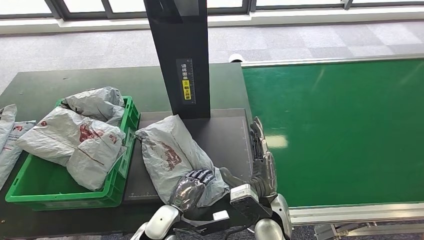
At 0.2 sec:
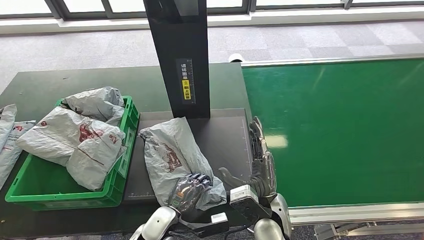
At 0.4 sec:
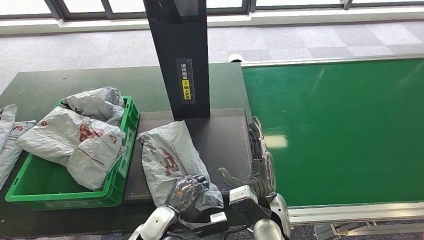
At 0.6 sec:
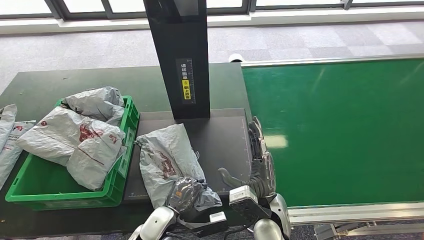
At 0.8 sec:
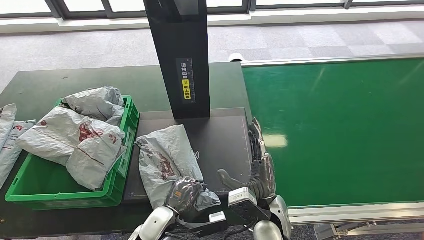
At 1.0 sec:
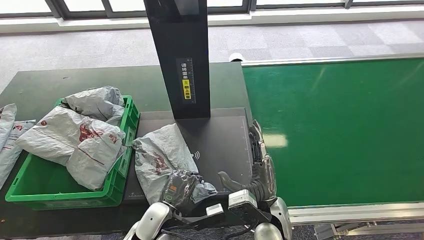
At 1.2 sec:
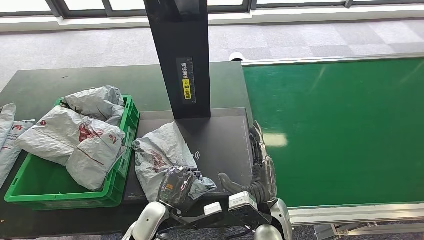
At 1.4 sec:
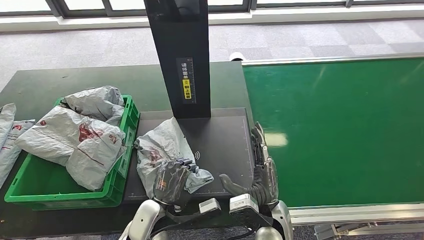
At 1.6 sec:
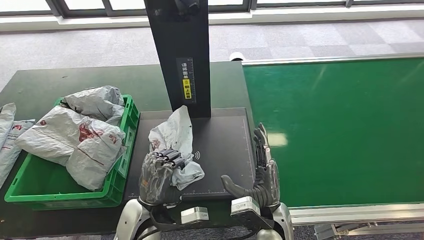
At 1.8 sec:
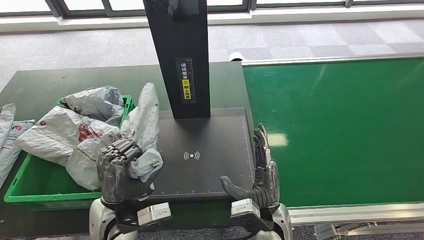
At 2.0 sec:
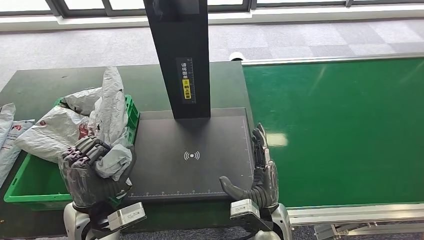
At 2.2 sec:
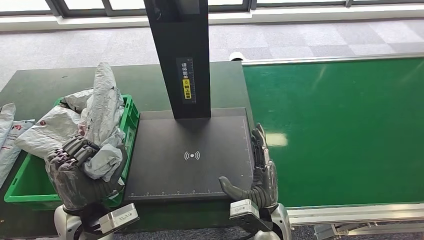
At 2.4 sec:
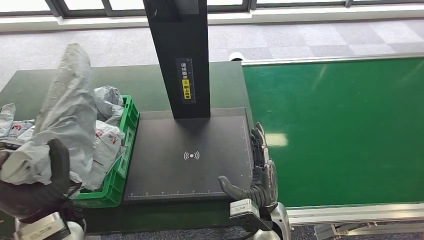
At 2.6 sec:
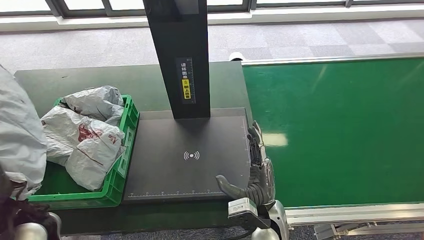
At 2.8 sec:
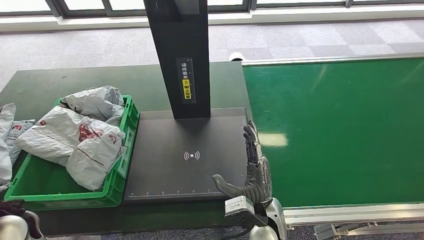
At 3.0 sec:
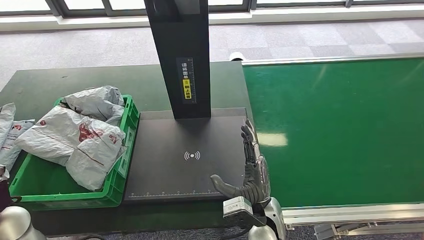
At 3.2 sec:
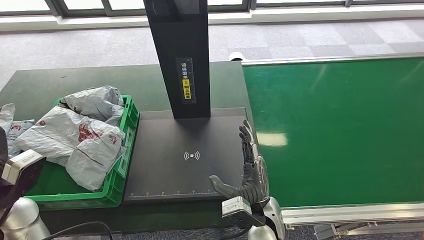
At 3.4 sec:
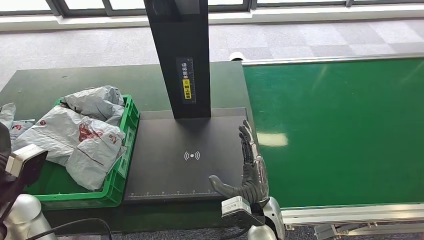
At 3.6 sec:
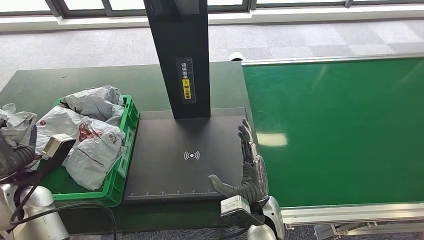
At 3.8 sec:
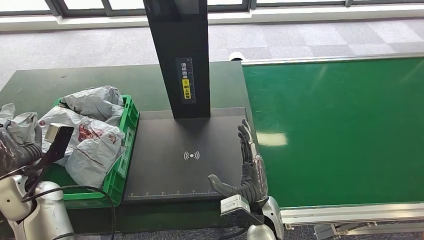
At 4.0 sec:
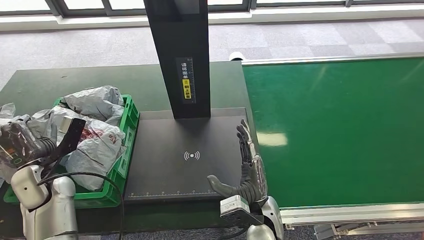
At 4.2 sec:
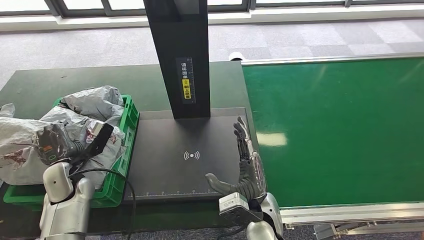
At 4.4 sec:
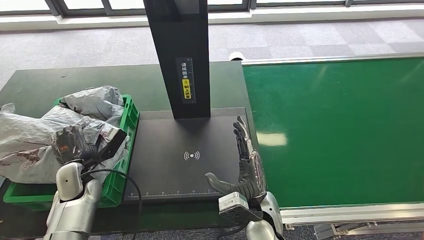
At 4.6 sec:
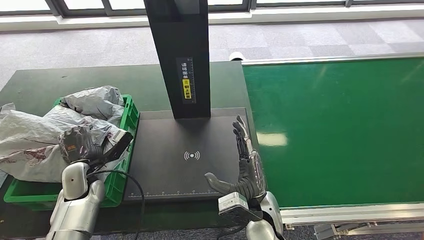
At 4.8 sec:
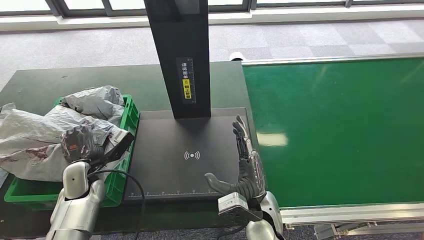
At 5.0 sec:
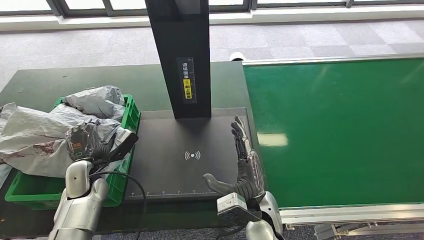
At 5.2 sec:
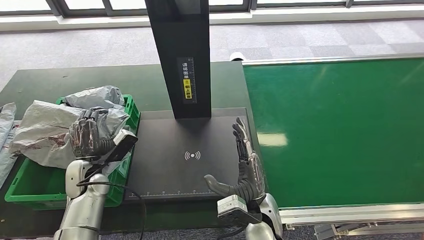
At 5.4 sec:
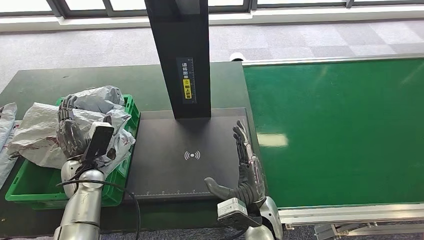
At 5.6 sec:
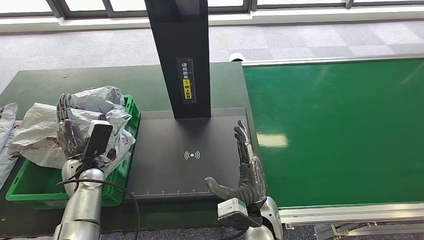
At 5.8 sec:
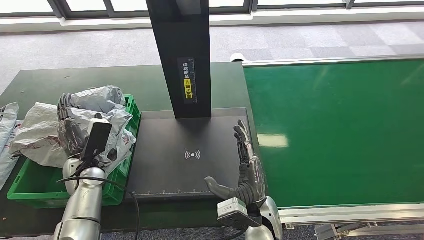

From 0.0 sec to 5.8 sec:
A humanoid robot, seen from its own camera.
Step, from 0.0 sec to 2.8 sec: Pick up the parcel from the inbound machine.
Step, from 3.2 sec to 5.8 sec: Place the parcel into the delivery box.
From 0.0 sec to 1.4 sec: The left hand goes some 5 cm upward.
From 1.4 sec to 2.8 sec: The left hand goes some 25 cm to the left and upward.
From 2.8 sec to 4.4 sec: The left hand travels downward and forward by some 15 cm.

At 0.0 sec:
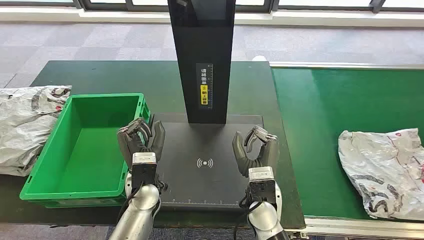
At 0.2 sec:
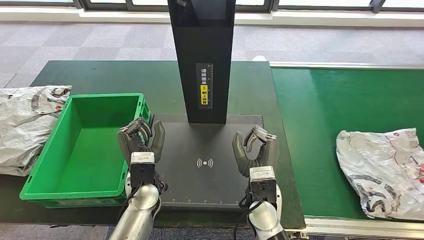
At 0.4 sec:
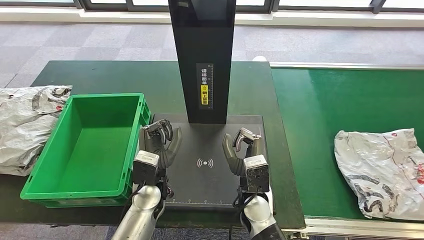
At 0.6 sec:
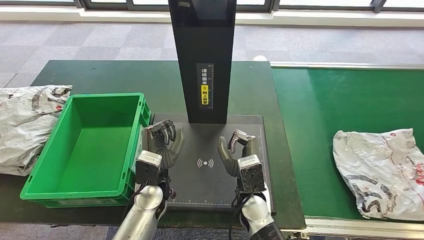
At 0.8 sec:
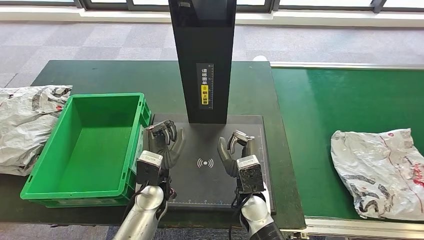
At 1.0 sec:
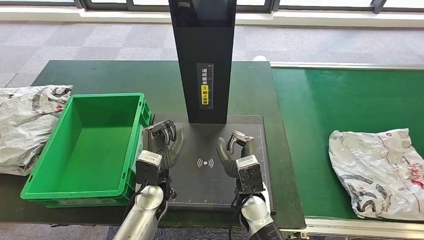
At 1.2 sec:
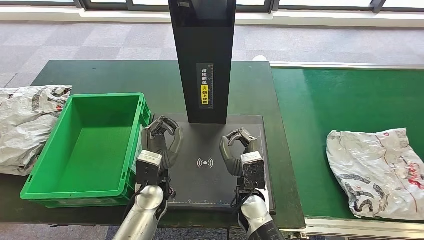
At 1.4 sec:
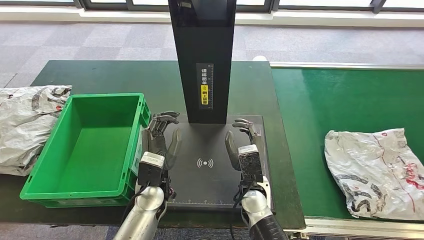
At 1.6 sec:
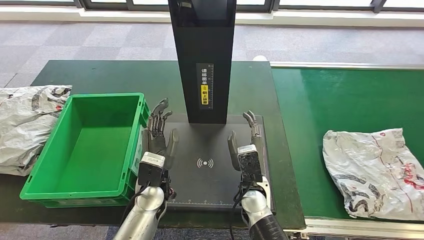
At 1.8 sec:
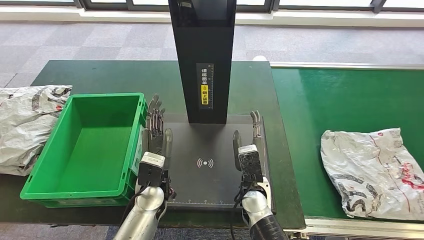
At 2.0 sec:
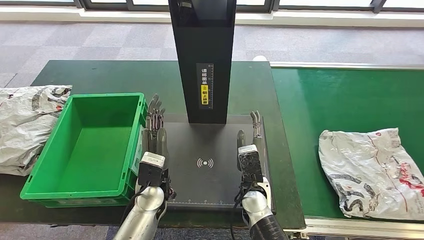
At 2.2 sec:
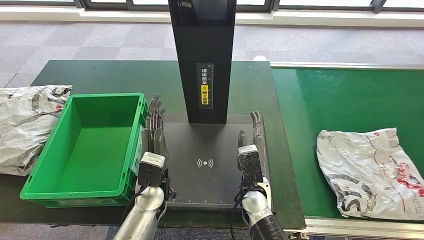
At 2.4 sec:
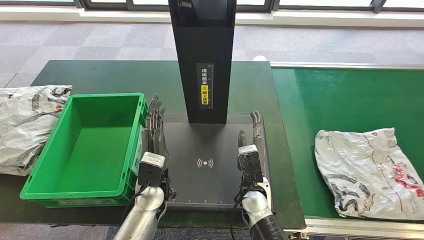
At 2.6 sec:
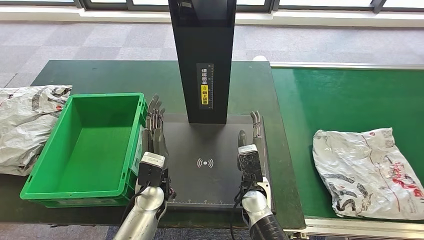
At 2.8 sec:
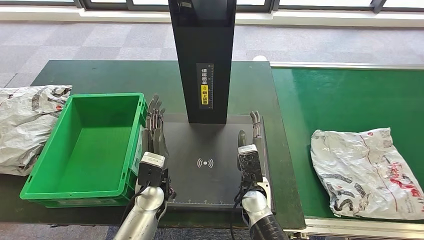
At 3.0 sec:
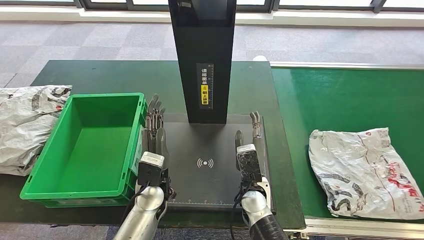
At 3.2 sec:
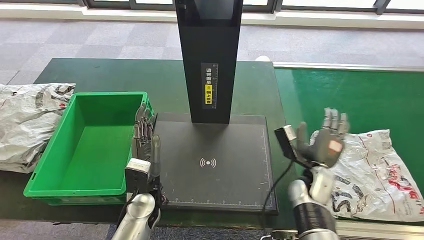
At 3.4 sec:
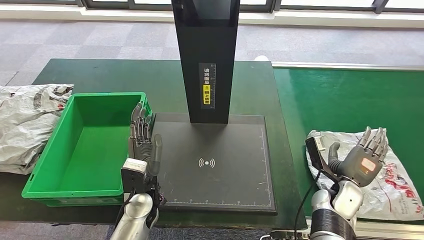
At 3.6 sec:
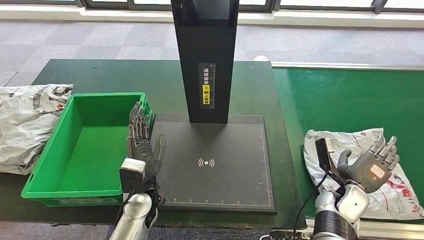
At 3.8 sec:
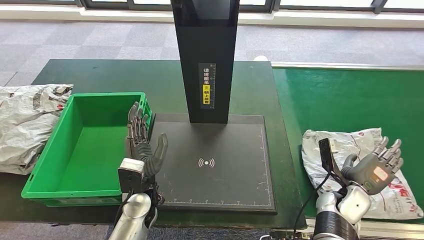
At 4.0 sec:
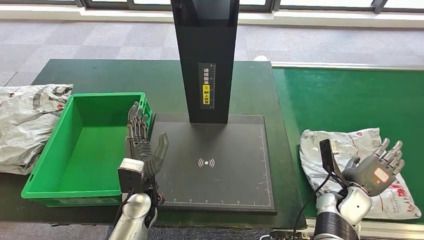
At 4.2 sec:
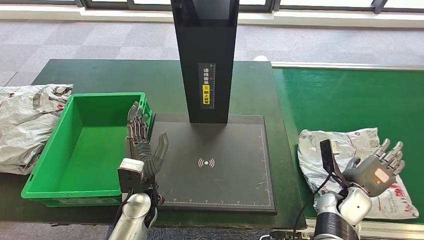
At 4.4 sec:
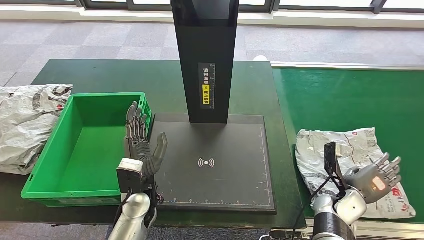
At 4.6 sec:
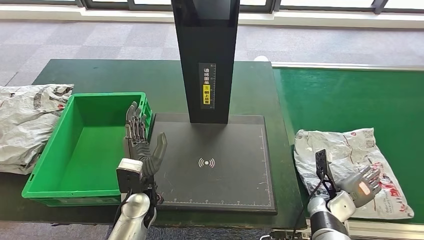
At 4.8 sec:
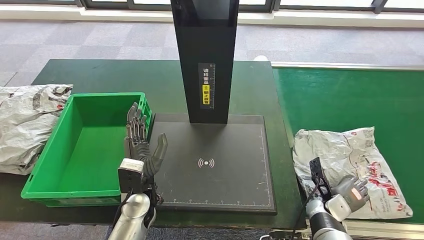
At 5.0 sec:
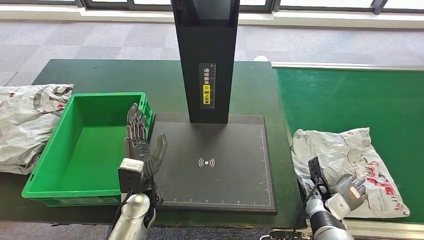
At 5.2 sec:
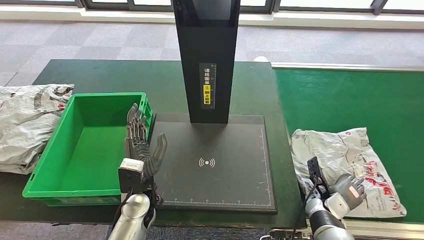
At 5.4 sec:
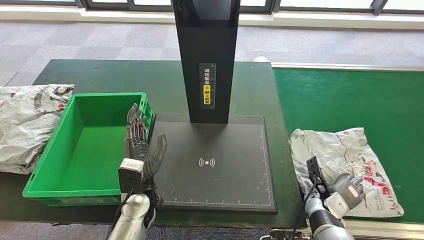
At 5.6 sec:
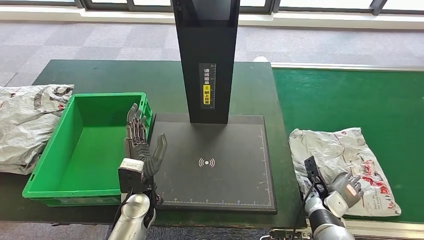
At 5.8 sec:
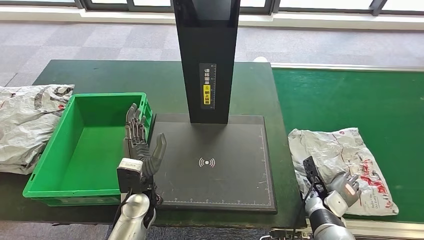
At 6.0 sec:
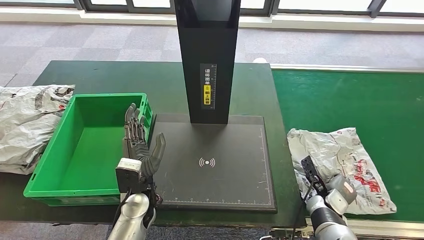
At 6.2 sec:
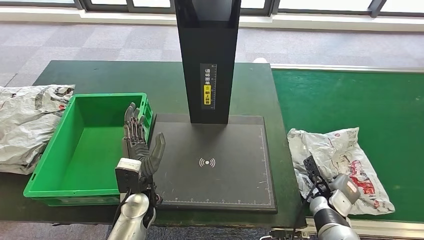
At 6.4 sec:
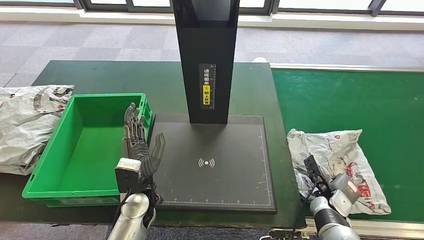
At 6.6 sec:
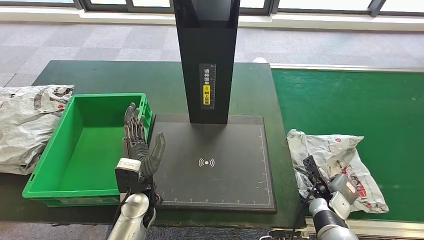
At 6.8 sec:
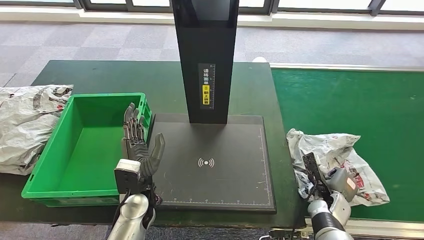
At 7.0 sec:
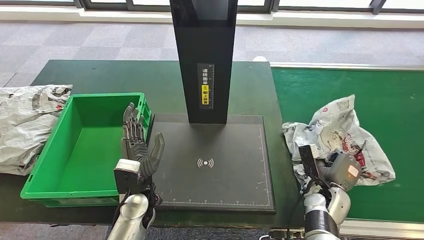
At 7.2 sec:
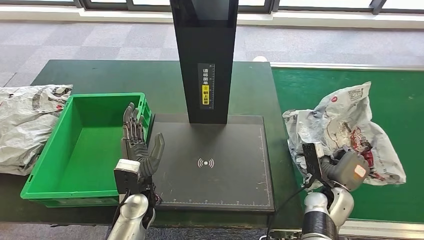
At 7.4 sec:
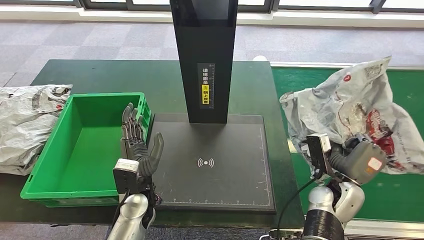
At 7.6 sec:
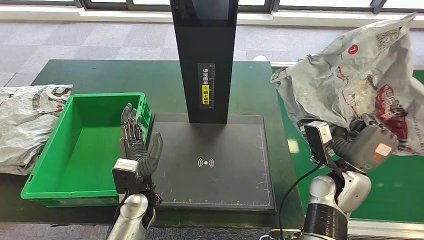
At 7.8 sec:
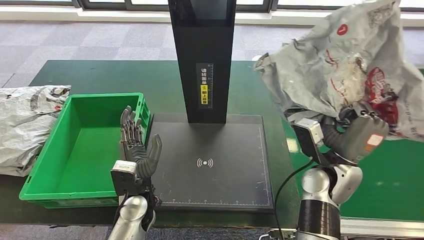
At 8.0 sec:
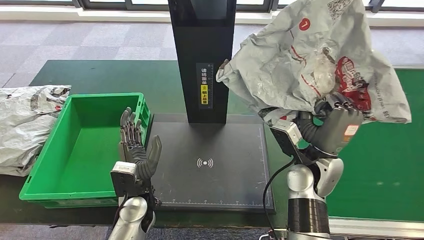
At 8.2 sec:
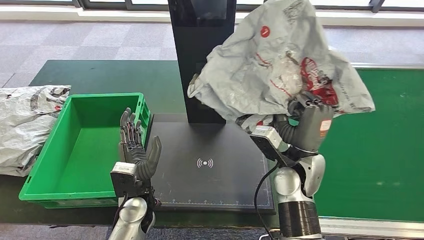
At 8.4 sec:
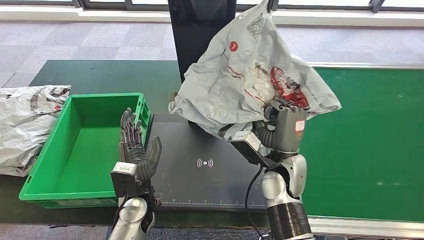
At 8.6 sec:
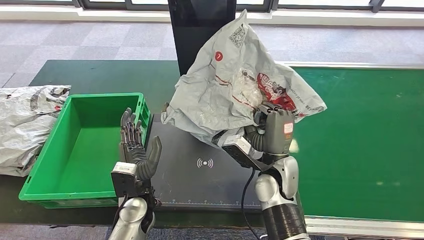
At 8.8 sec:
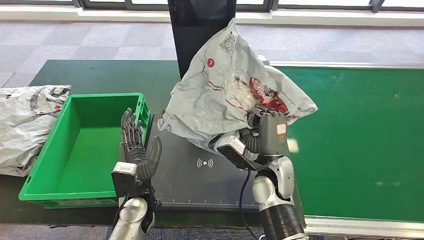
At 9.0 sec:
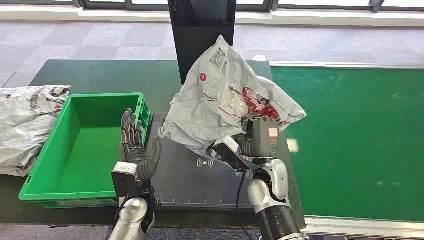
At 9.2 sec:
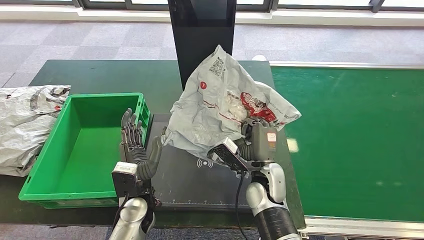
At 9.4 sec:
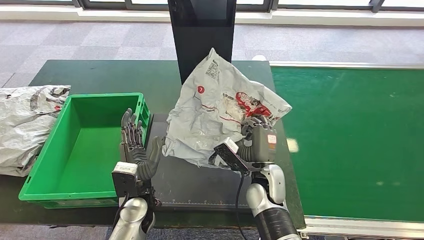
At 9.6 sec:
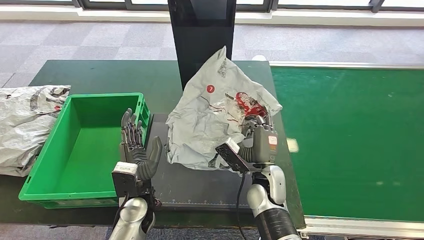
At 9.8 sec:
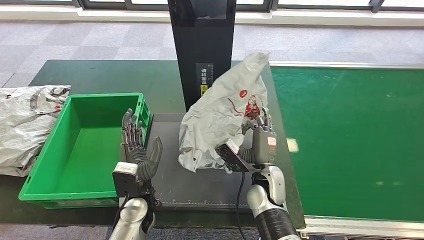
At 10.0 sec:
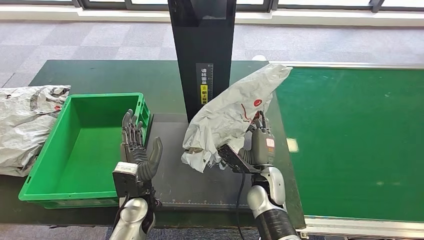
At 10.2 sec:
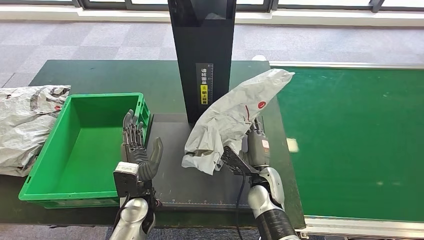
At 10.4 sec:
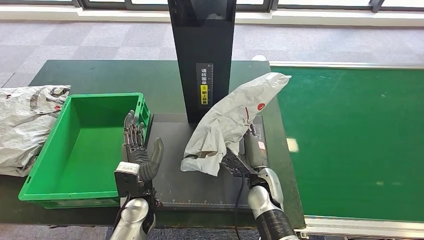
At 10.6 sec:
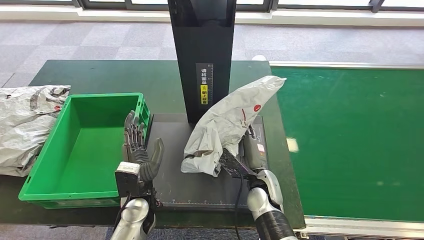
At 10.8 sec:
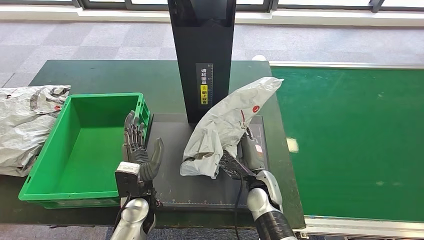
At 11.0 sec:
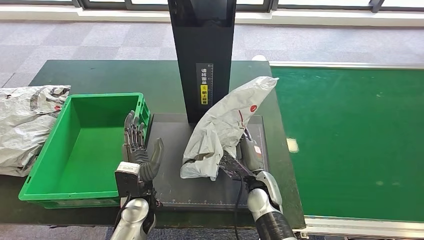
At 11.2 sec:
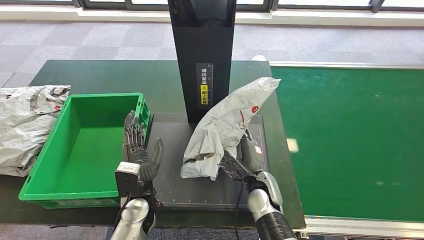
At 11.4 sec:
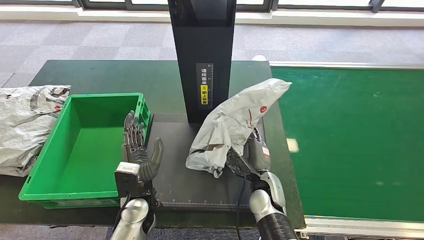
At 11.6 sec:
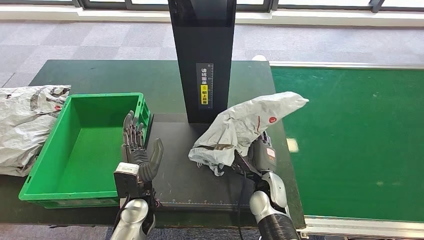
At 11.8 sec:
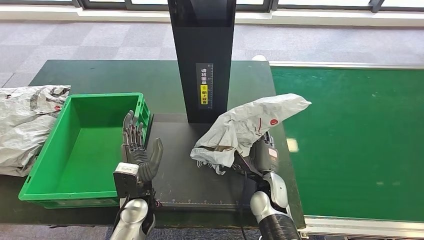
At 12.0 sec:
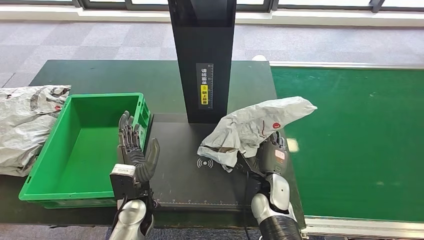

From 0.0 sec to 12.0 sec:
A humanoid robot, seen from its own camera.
Step, from 0.0 sec to 7.6 sec: Take the parcel off the conveyor belt.
From 1.6 sec to 3.0 sec: The two hands keep their place.
